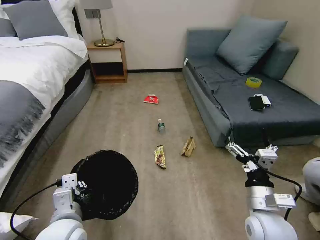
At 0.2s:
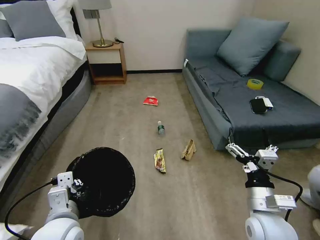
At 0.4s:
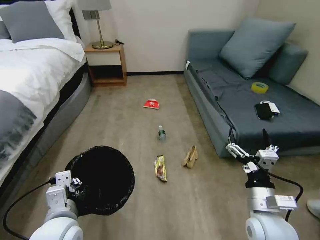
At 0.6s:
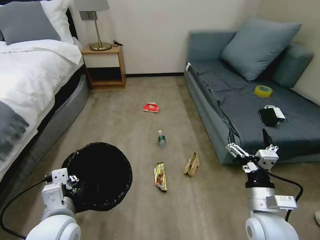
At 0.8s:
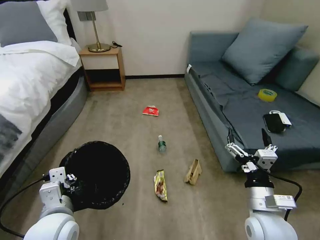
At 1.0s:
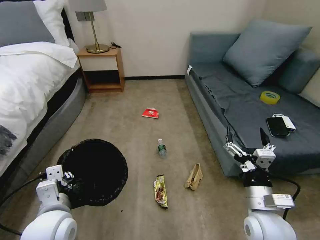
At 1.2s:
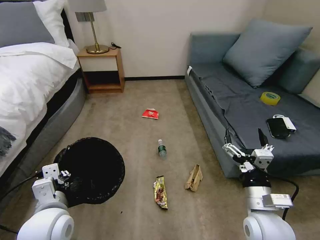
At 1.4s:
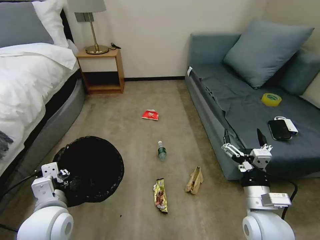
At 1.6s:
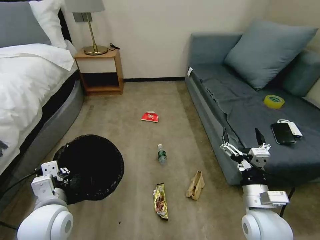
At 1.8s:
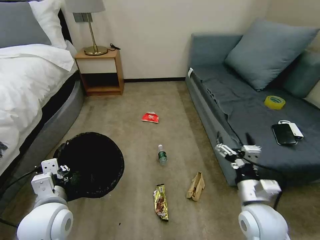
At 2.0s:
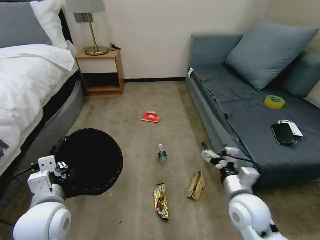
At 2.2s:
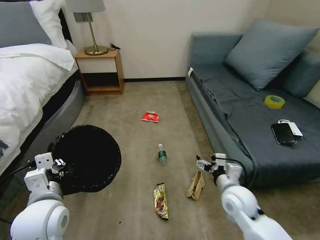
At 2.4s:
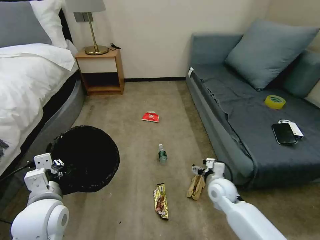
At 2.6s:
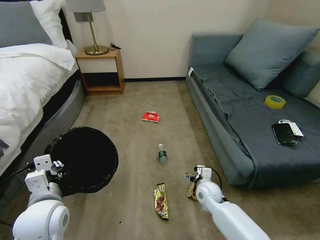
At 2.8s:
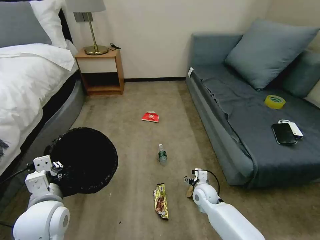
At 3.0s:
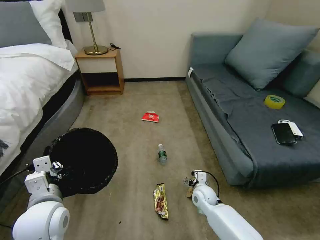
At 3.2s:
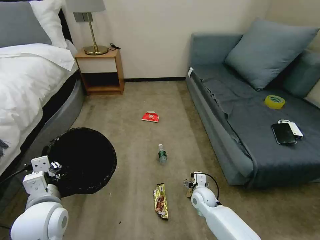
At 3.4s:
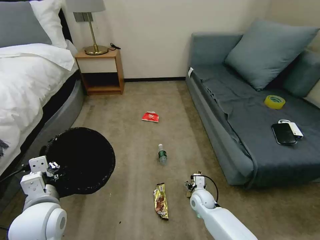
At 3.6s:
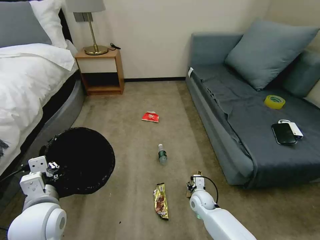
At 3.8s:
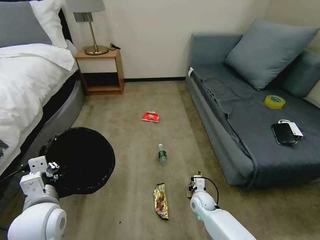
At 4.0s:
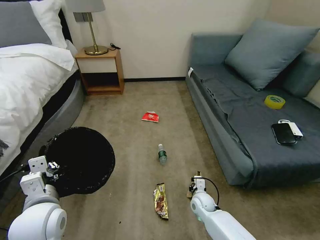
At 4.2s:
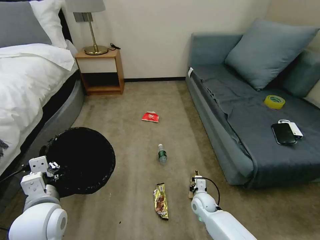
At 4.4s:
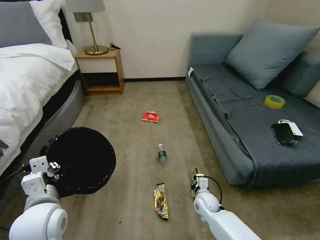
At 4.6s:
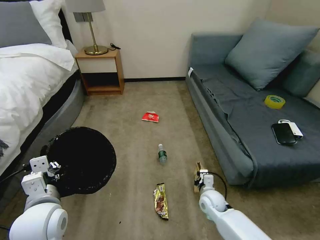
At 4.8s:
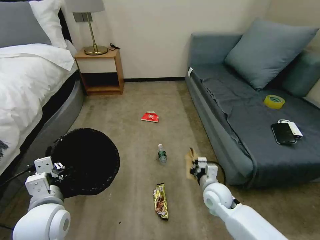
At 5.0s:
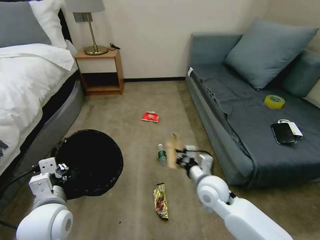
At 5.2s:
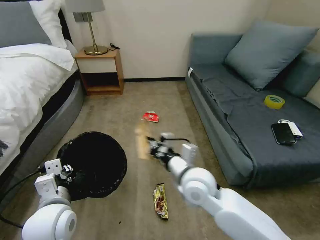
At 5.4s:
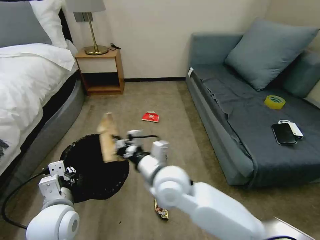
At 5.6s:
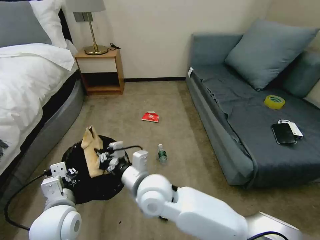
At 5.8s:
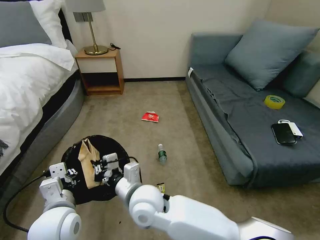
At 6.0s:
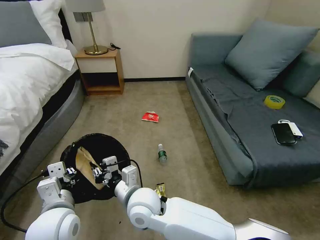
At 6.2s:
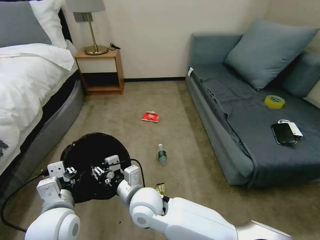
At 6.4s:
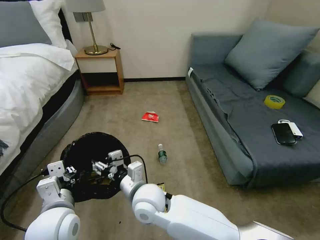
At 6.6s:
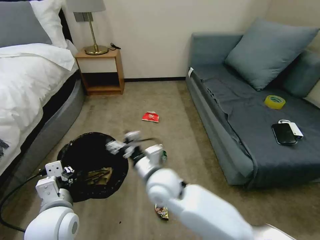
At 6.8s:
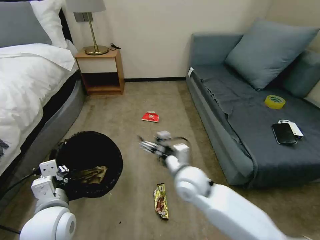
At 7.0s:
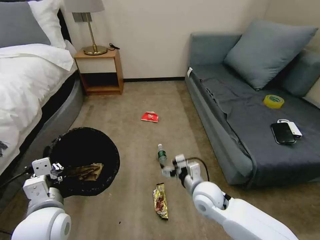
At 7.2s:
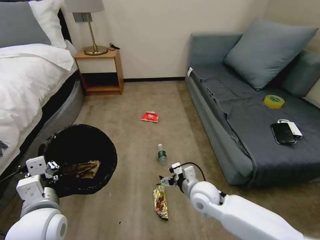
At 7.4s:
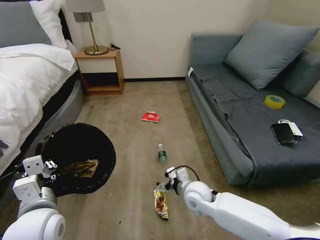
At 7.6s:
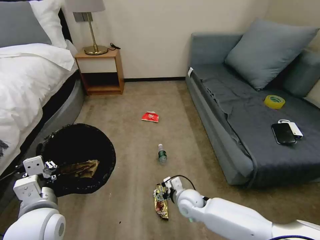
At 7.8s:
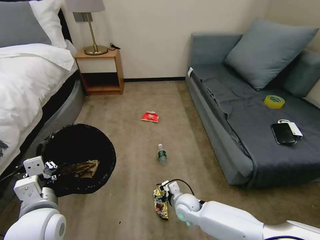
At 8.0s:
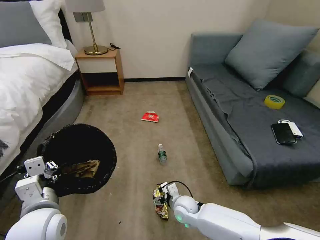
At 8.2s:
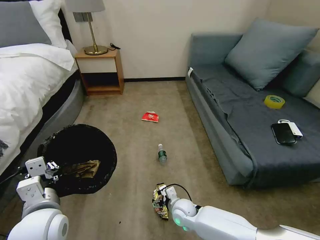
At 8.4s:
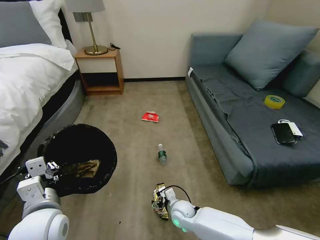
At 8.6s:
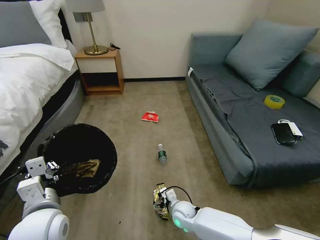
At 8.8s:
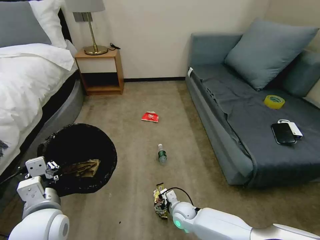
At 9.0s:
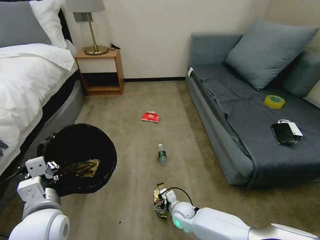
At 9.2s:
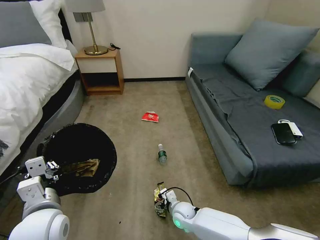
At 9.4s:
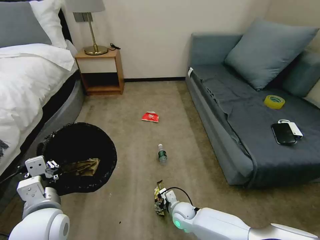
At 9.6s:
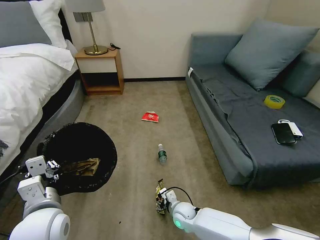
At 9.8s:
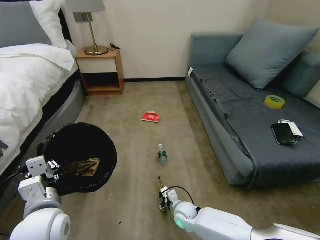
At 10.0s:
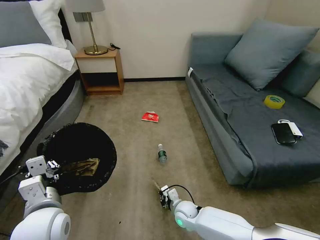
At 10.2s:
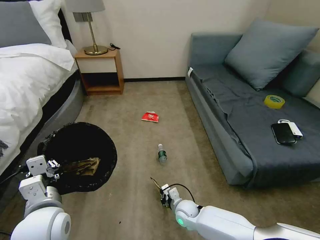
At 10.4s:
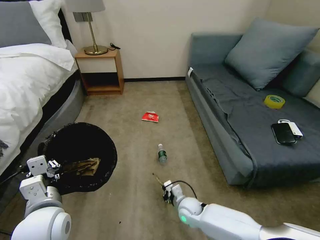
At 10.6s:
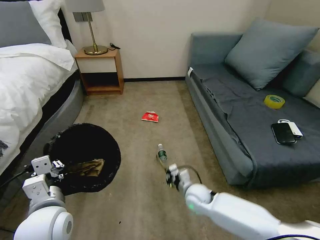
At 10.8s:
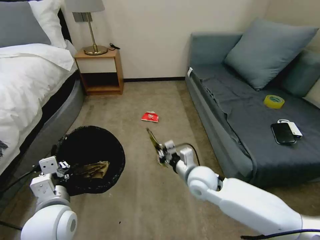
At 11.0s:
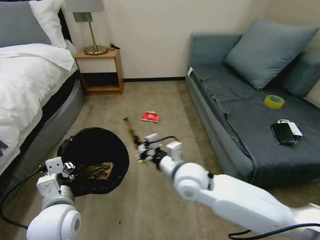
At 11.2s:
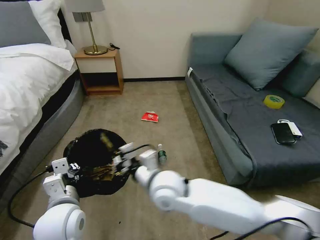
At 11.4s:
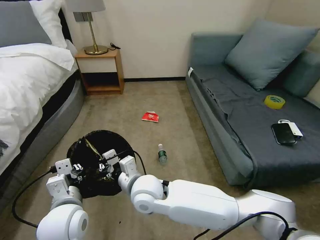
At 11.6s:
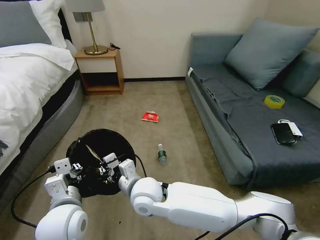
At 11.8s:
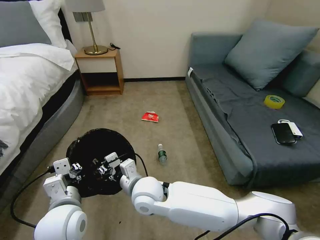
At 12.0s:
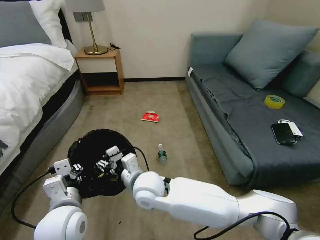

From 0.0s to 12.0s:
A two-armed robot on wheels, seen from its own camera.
Task of the whole recording: Pick up the trash bin, then pick up the garbage on the floor and place it into the trash bin.
From 0.0s to 1.6s: The left gripper changes place by approximately 5 cm.
From 1.6s to 3.0s: The right gripper travels downward and forward by some 25 cm.
From 3.0s to 4.4s: The right gripper closes its fingers.
From 4.4s to 6.0s: The right gripper moves to the left and upward, roughly 35 cm.
From 6.0s to 7.6s: The right gripper goes approximately 20 cm to the right and downward, and opens up.
From 7.6s to 9.0s: The right gripper moves downward, some 10 cm.
From 9.0s to 10.4s: The right gripper closes its fingers.
From 10.4s to 12.0s: The right gripper is displaced upward and to the left by approximately 30 cm, and opens.

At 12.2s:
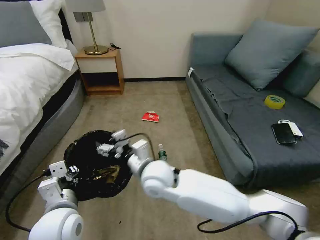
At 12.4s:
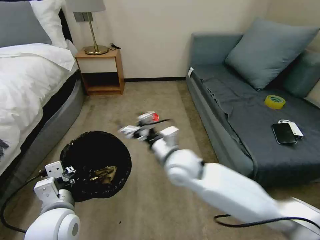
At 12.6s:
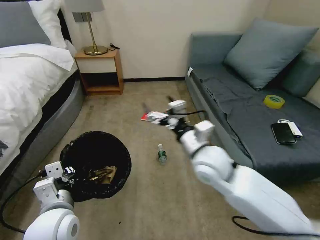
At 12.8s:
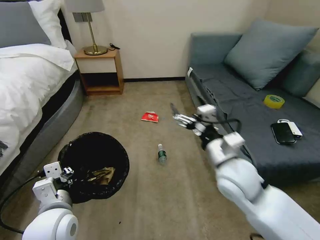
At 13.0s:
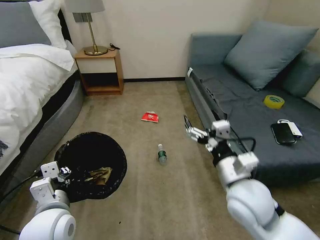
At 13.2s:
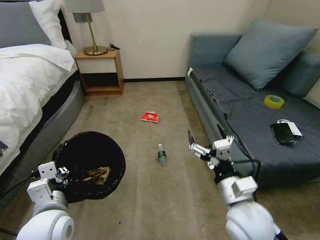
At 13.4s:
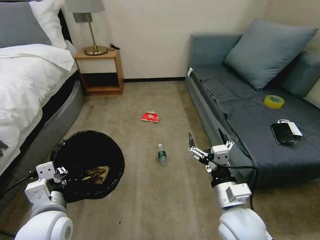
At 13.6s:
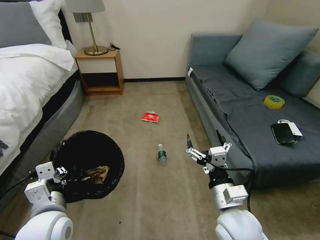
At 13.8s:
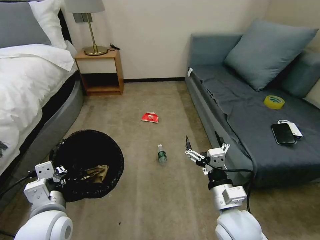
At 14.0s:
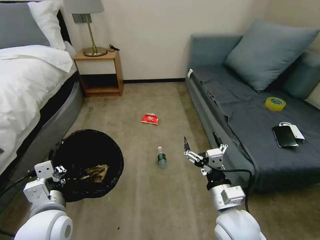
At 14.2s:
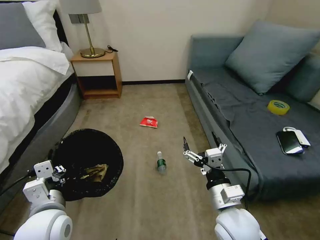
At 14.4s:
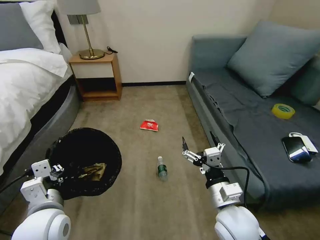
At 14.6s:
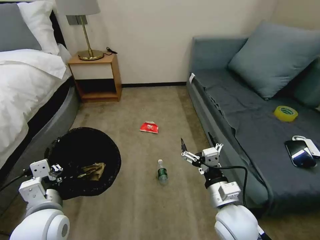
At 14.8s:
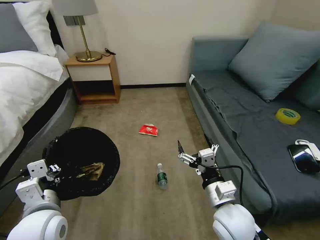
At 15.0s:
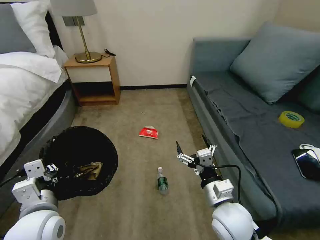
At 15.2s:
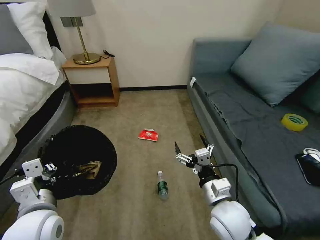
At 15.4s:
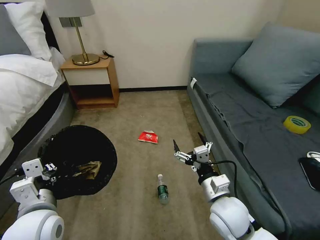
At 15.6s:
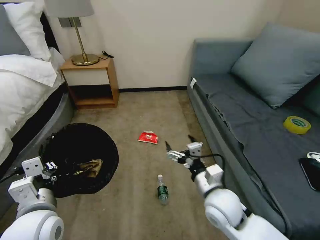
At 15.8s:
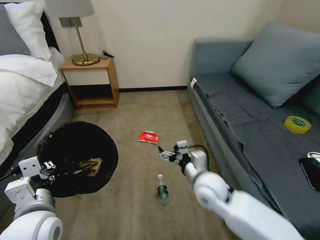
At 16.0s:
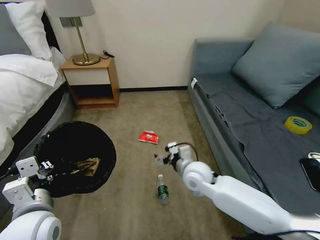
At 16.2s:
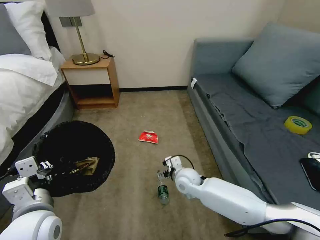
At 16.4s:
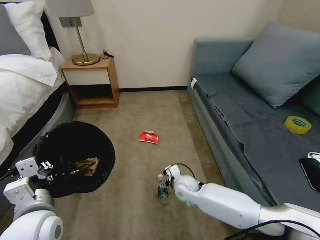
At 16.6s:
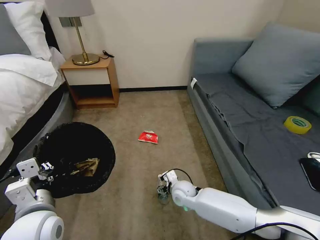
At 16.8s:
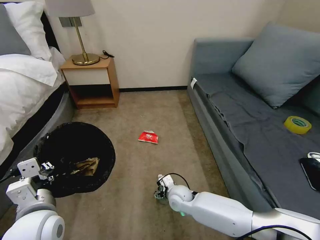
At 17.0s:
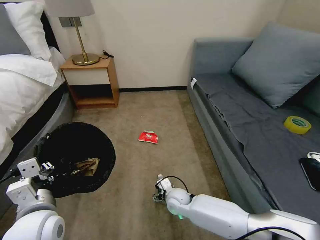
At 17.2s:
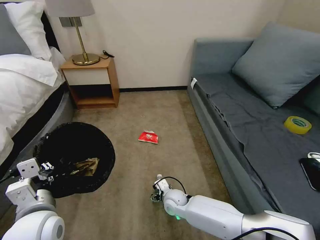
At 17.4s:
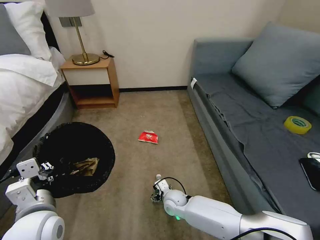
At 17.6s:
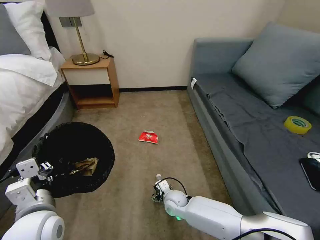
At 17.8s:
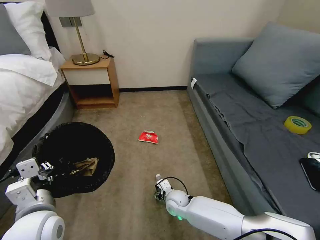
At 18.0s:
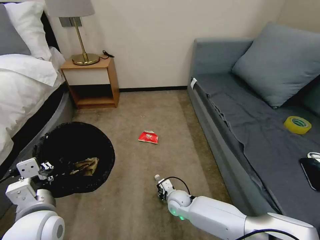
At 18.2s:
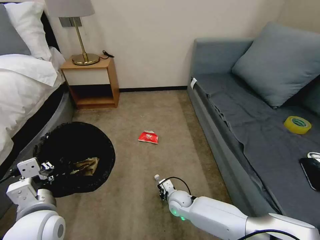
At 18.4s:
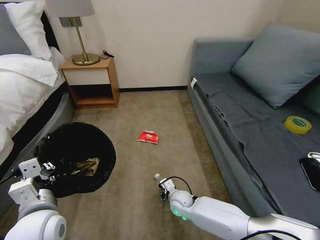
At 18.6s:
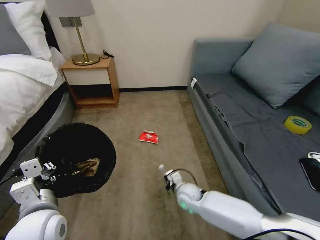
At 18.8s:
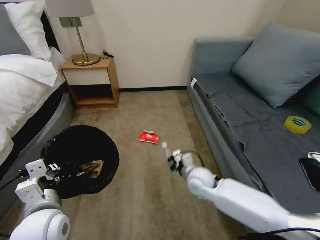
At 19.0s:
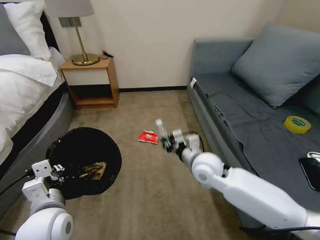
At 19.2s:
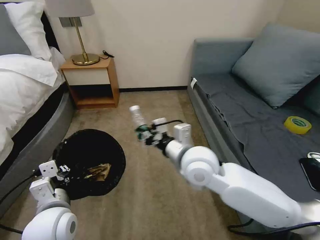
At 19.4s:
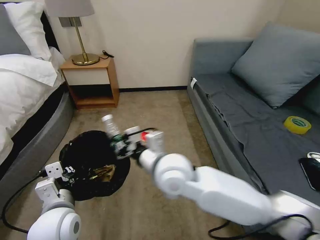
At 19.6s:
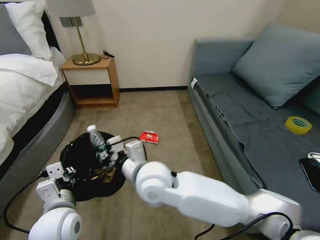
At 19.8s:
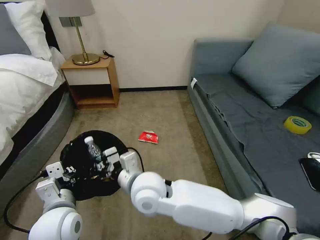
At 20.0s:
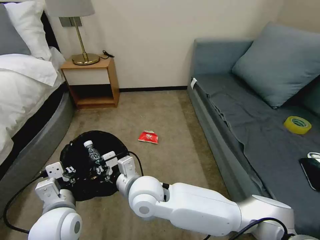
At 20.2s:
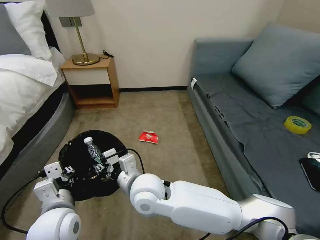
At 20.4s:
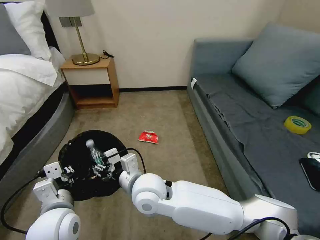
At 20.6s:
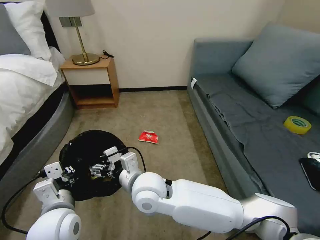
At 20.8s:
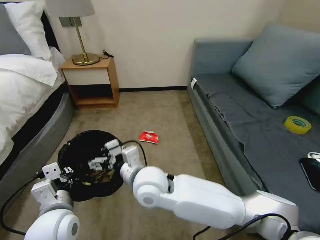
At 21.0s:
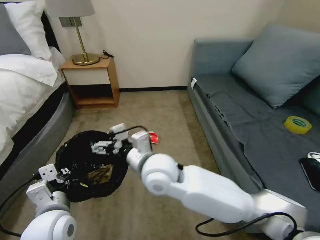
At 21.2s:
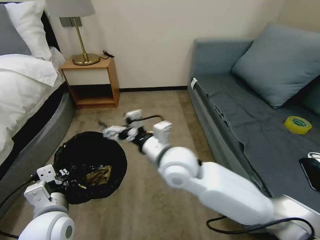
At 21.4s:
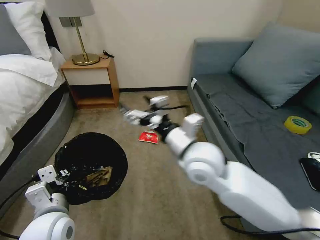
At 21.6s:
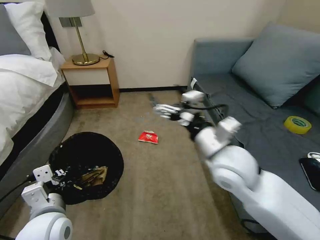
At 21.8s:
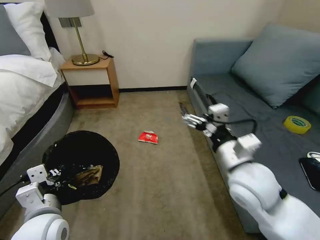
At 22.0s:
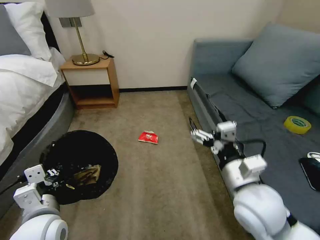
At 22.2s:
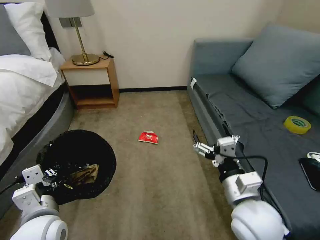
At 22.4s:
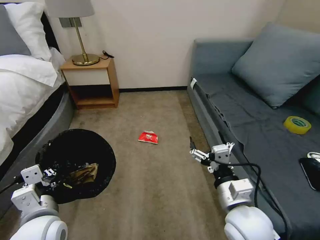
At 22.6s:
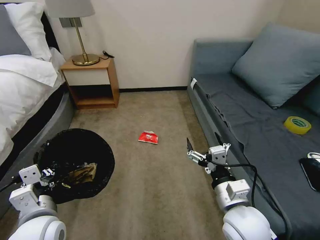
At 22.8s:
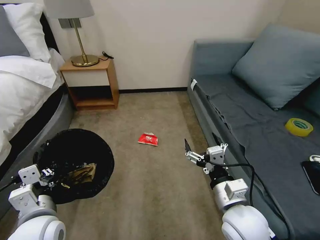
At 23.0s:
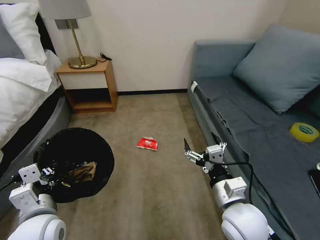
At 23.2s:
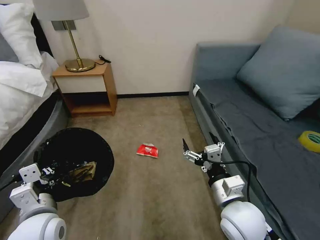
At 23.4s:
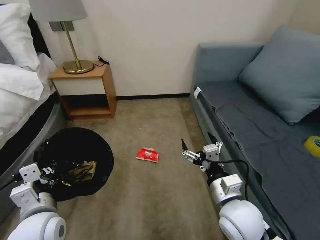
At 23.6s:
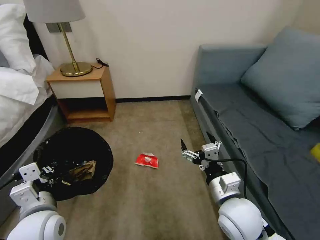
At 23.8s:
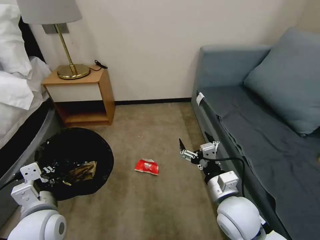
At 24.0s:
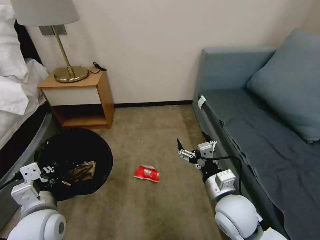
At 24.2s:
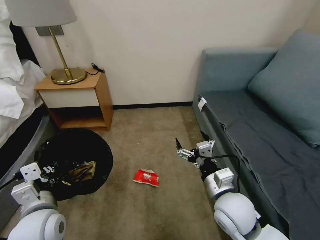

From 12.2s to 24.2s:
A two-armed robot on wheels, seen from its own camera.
Task of the whole recording: Pick up the trash bin, then pick up the garbage on the floor and place it into the trash bin.
From 12.2s to 13.8s: The right gripper moves to the right and backward, about 25 cm.
From 15.2s to 16.6s: The right gripper is displaced downward, forward and to the left by some 20 cm.
From 16.6s to 18.2s: The right gripper is displaced downward by roughly 5 cm, and closes its fingers.
From 18.2s to 19.8s: The right gripper goes approximately 30 cm upward and to the left.
From 19.8s to 21.2s: The right gripper goes some 10 cm to the right and upward, and opens.
From 21.2s to 22.6s: The right gripper shifts about 20 cm to the right, backward and downward.
